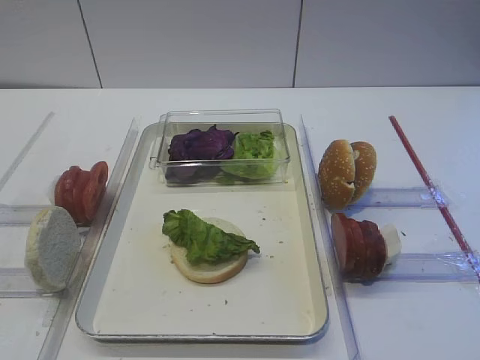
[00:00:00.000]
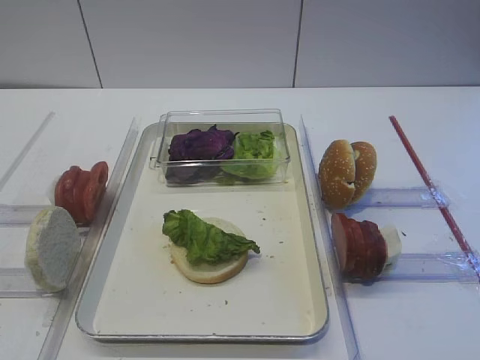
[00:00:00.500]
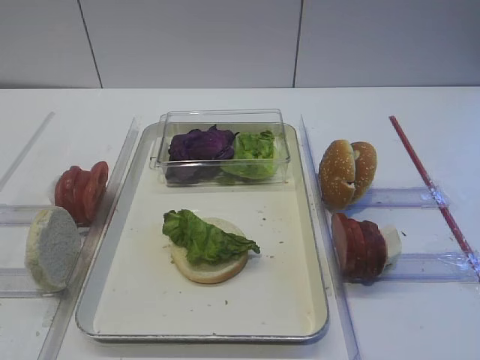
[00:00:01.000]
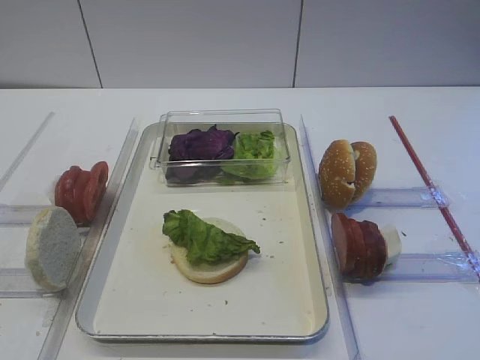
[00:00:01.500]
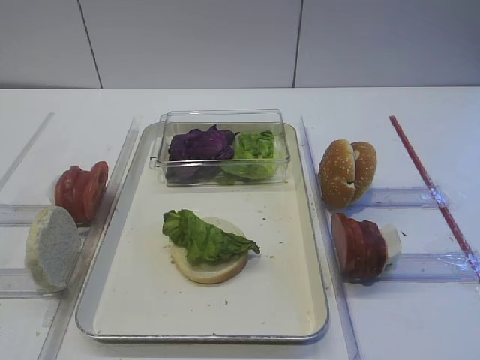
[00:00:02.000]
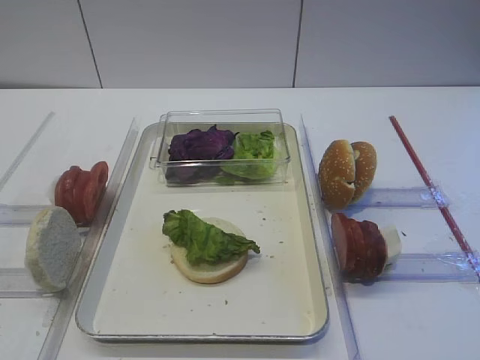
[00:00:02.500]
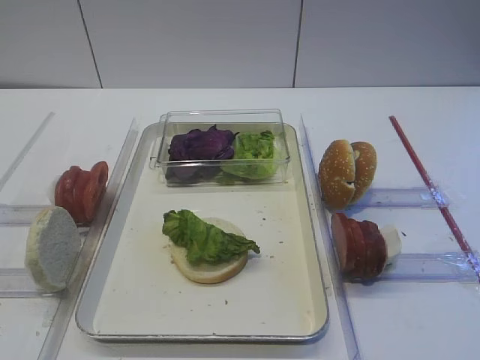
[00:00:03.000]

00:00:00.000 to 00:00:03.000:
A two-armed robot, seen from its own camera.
00:00:00.000 to 00:00:03.000: The two grippers keep their place.

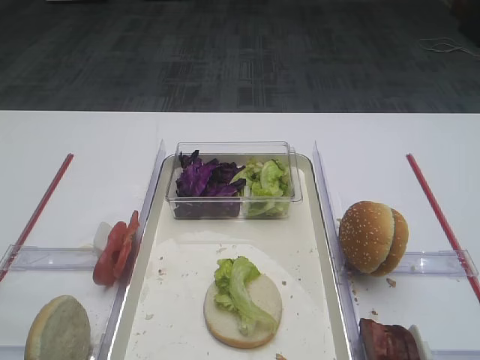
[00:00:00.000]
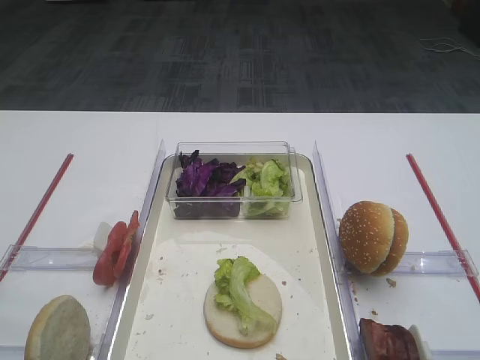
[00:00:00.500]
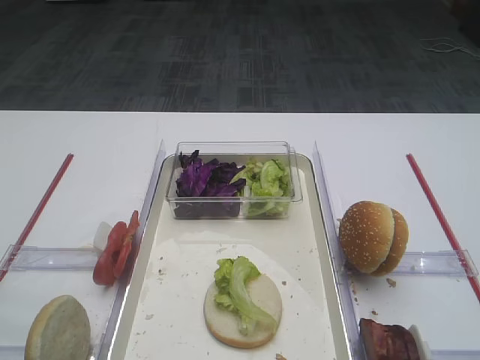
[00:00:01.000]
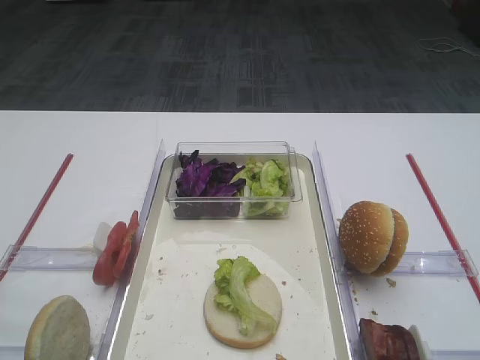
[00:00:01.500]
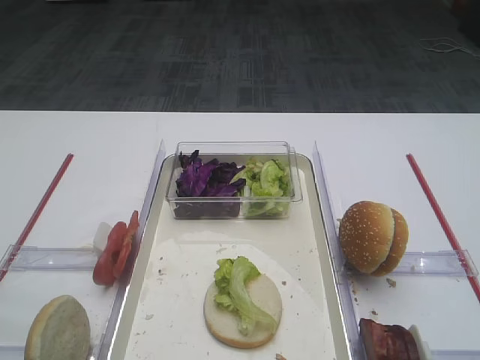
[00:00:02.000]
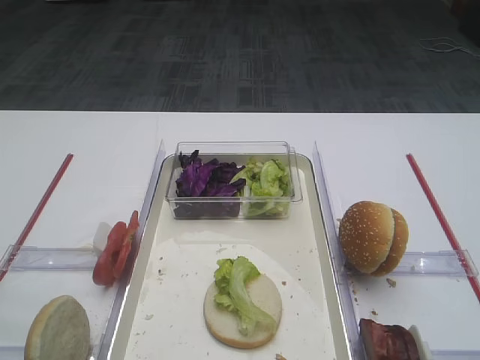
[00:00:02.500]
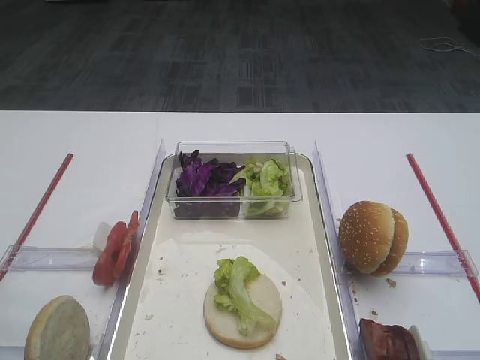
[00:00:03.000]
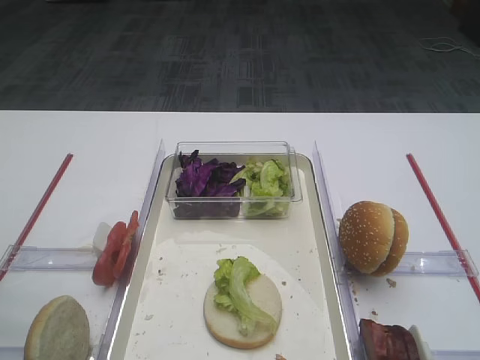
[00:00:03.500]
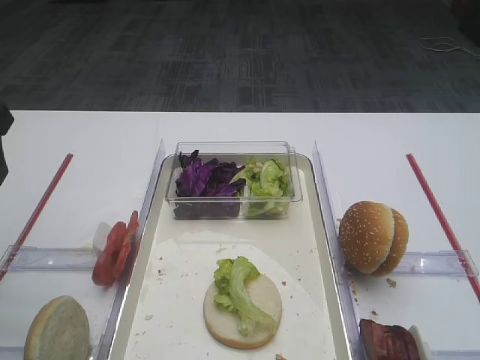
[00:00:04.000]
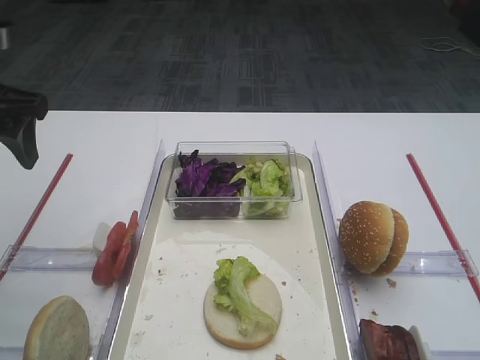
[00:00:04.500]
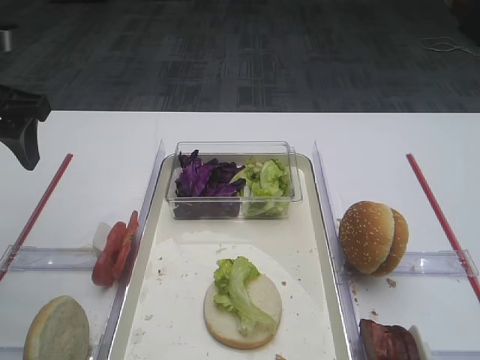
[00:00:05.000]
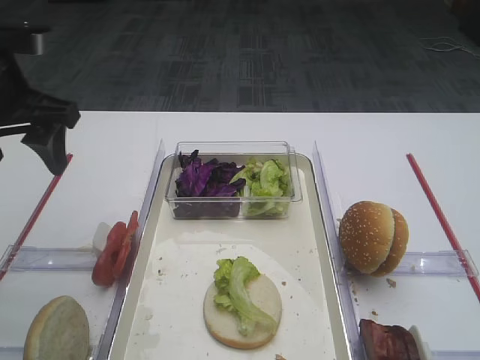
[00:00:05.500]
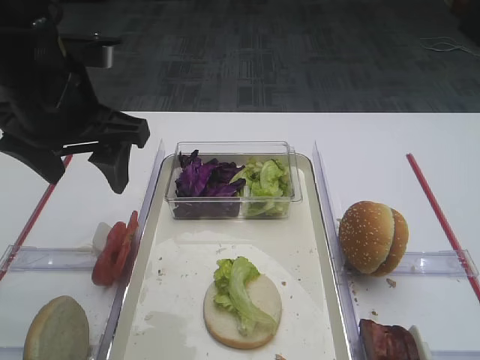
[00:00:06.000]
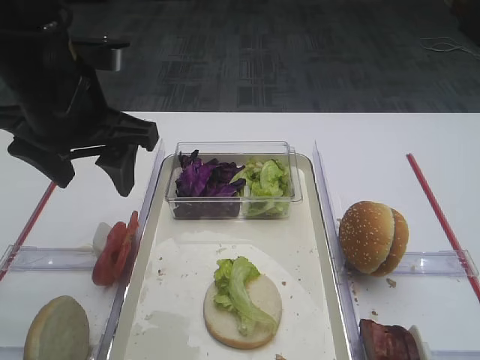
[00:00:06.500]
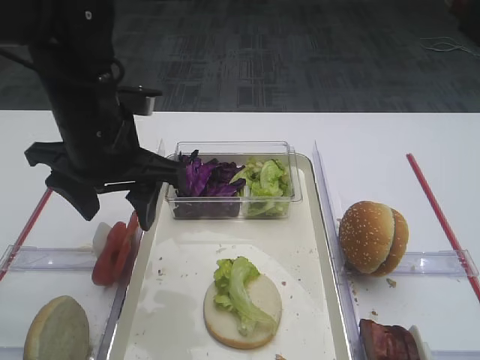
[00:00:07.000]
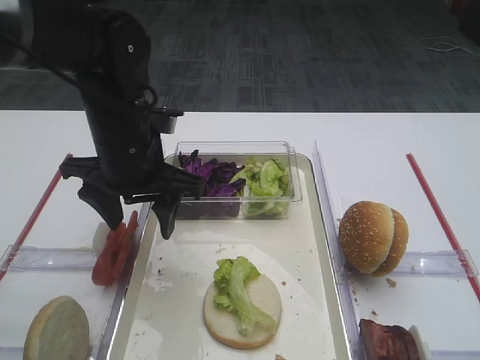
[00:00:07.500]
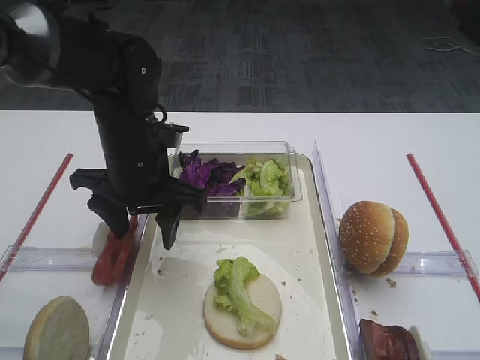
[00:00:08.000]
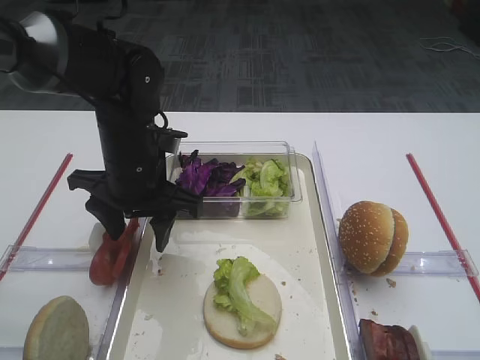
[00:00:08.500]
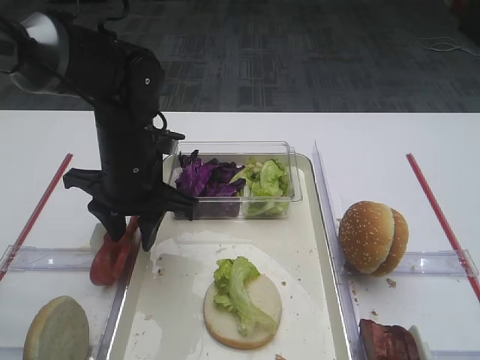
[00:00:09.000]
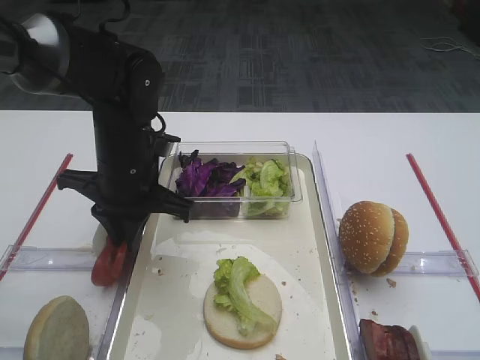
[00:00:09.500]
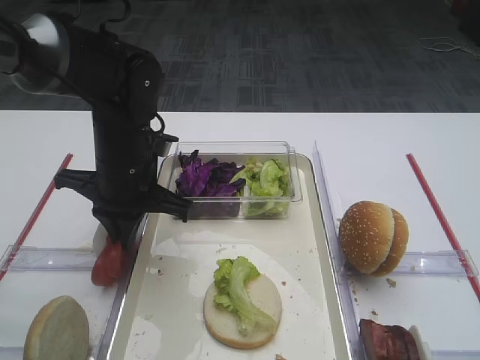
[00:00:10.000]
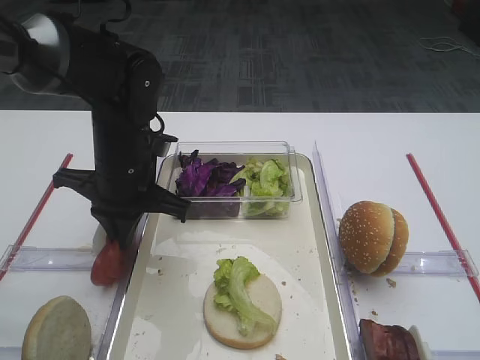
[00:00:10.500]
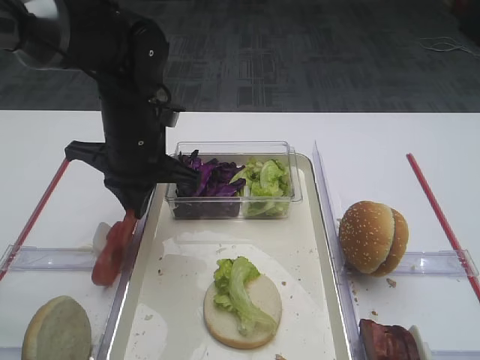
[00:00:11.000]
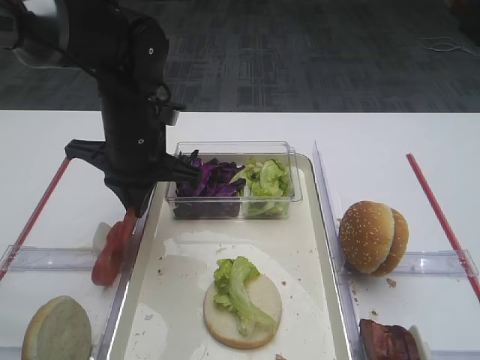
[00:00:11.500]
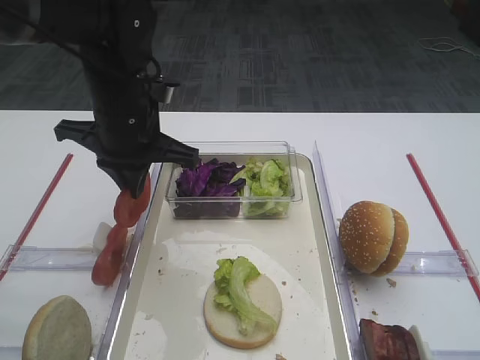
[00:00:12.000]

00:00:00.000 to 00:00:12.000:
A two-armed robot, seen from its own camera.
Step, 00:00:00.000 to 00:00:11.000: Pick up the tomato slice with the left gripper.
00:00:02.000 to 00:00:04.000: The left gripper goes about 25 cm forward.
00:00:04.000 to 00:00:06.000: The left gripper is displaced to the right by approximately 10 cm.
00:00:06.000 to 00:00:08.000: The left gripper heads downward and to the right, covering about 10 cm.
00:00:08.000 to 00:00:10.000: The left gripper closes.
00:00:10.000 to 00:00:12.000: The left gripper moves upward, approximately 5 cm.

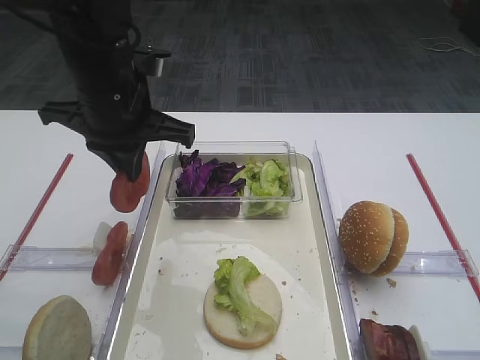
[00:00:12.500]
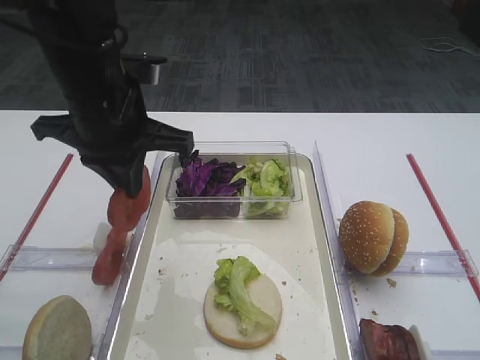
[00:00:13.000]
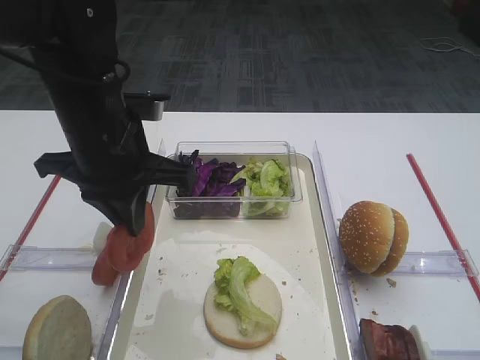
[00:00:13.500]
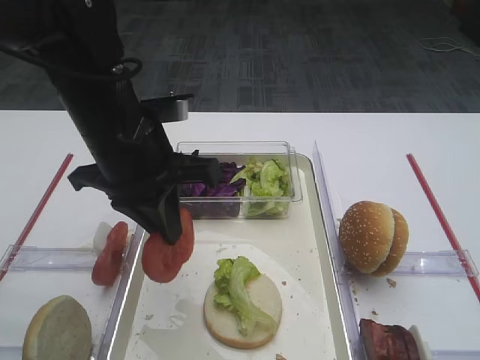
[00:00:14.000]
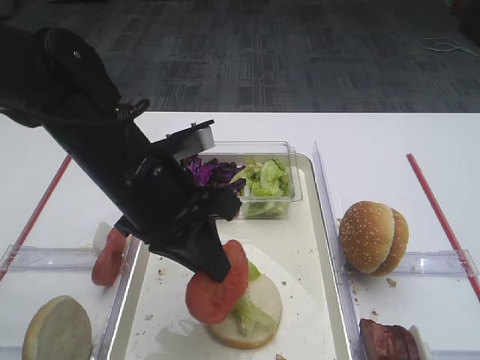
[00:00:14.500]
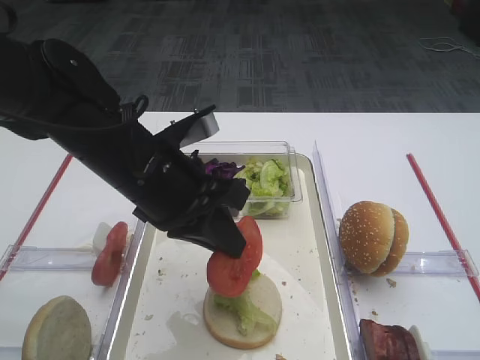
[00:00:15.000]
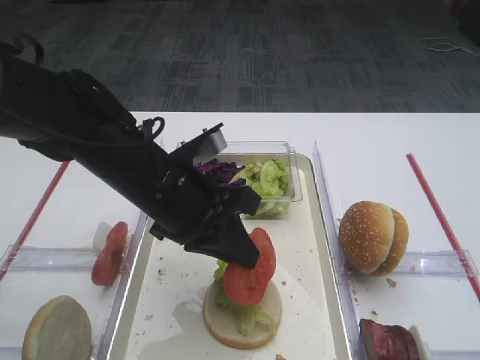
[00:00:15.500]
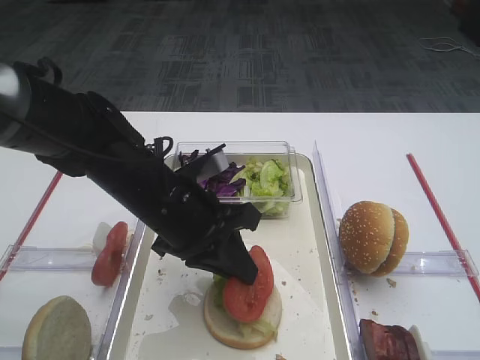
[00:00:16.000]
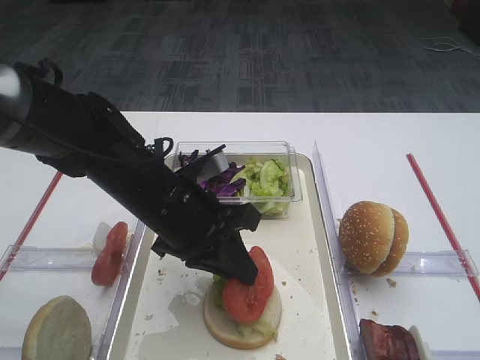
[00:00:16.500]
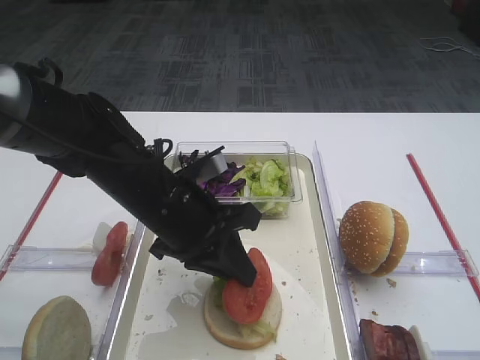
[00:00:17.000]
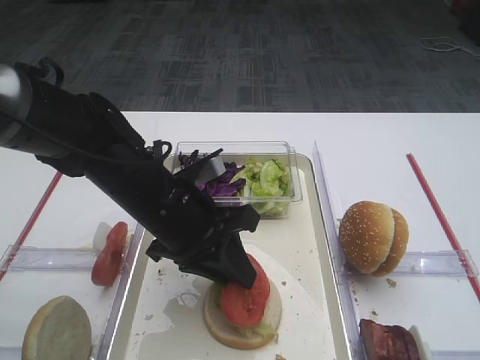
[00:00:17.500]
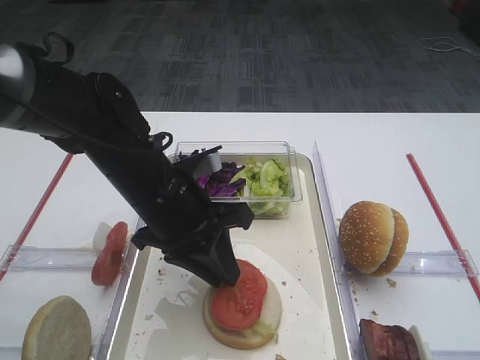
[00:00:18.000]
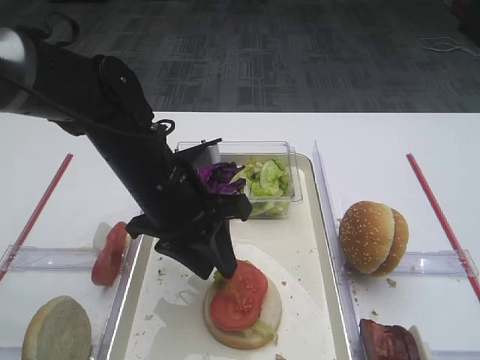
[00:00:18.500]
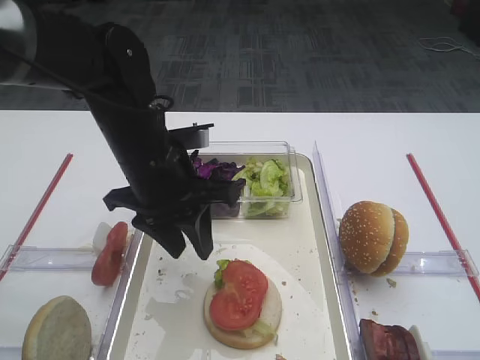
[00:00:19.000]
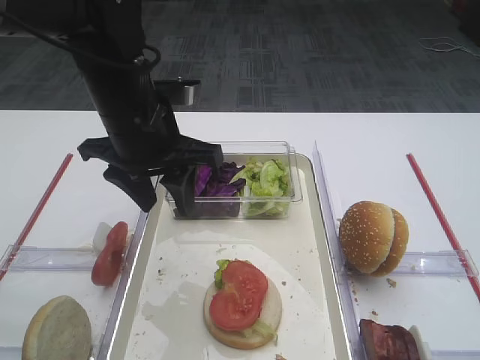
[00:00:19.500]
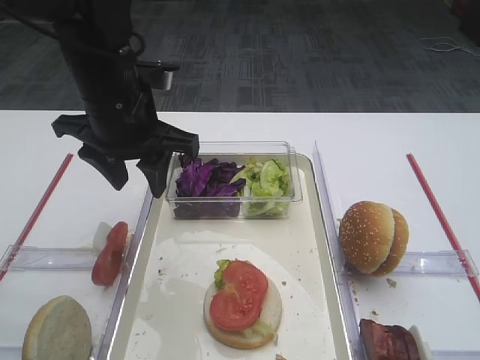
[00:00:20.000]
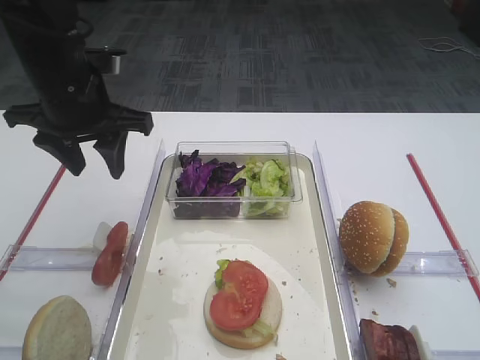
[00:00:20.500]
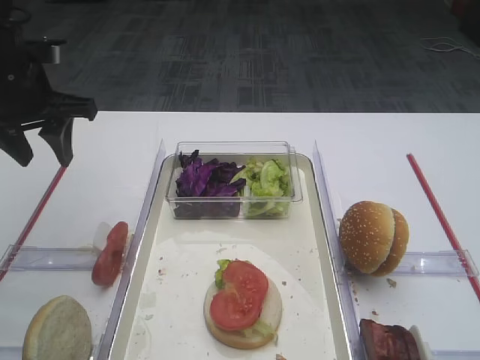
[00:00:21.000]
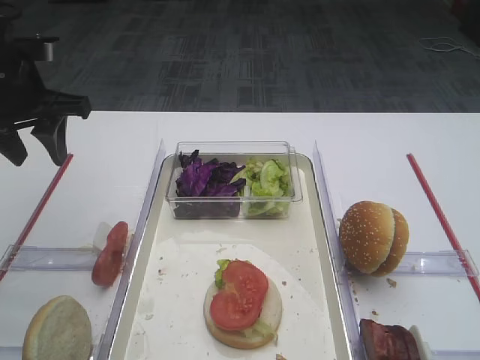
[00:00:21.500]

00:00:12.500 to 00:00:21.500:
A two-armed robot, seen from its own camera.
Step, 00:00:12.500 to 00:00:18.500: Place the tomato slice on the lettuce leaf with the left gripper.
00:00:12.500 to 00:00:14.500: The left gripper heads backward and downward, covering some 10 cm.
00:00:14.500 to 00:00:17.000: The left gripper moves downward, approximately 5 cm.
00:00:17.000 to 00:00:19.500: The left gripper shifts some 10 cm upward, and opens.
00:00:19.500 to 00:00:21.500: The left gripper moves to the left, some 15 cm.

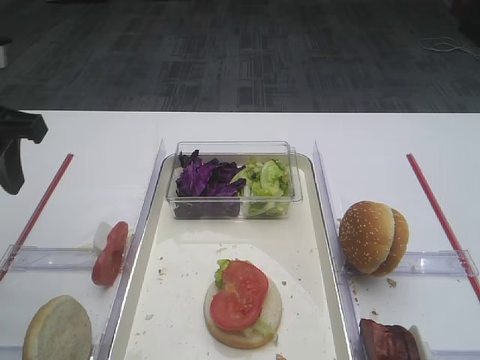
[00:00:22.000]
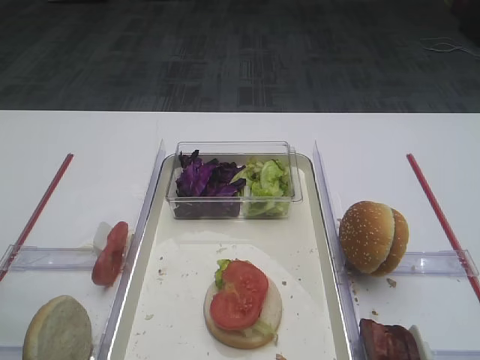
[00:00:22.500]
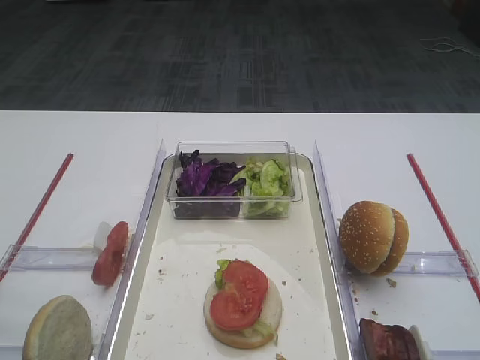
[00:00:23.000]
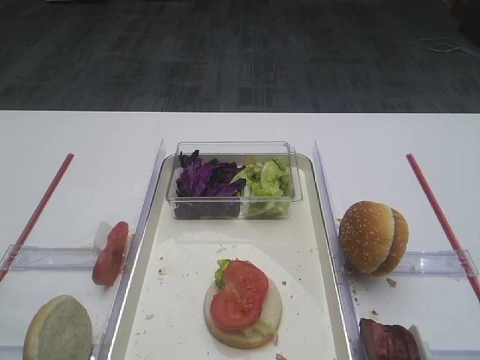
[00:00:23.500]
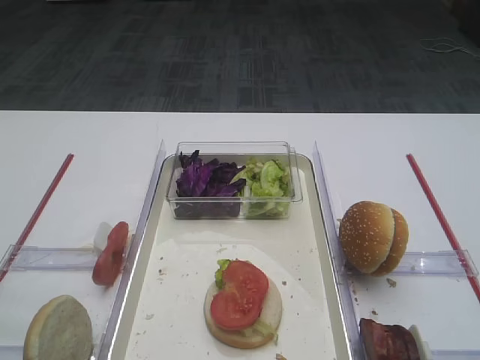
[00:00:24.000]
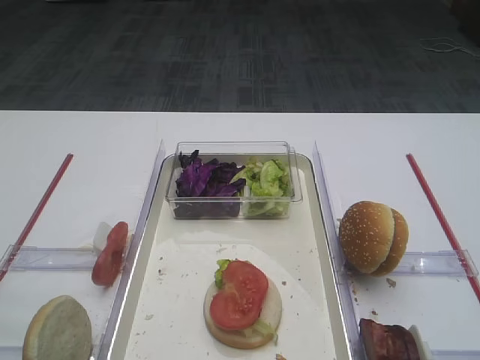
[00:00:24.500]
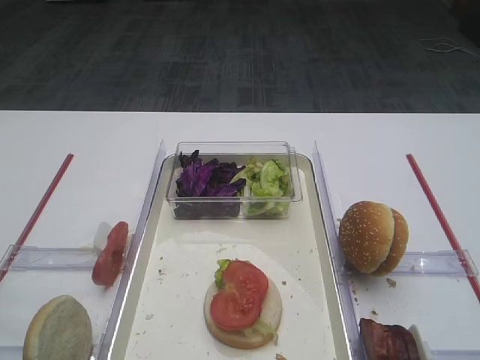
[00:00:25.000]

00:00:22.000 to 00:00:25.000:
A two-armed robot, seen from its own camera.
00:00:22.000 to 00:00:23.500: The left gripper moves backward, some 25 cm.
